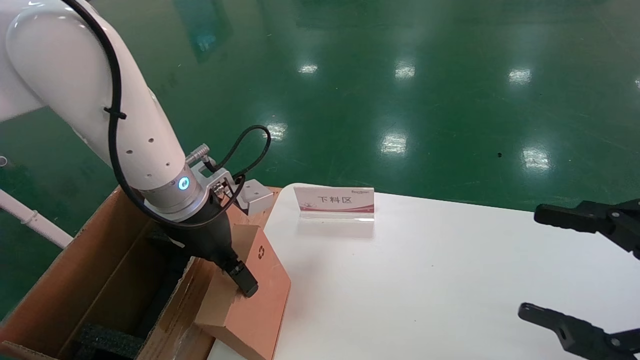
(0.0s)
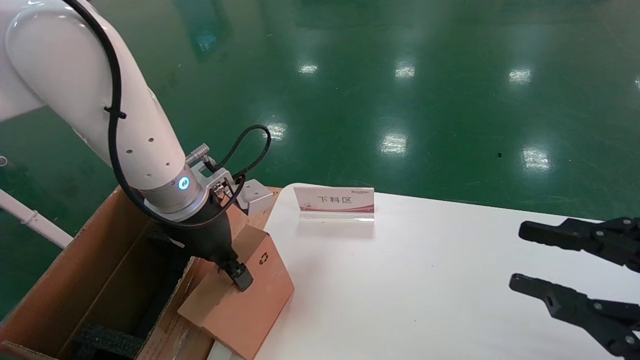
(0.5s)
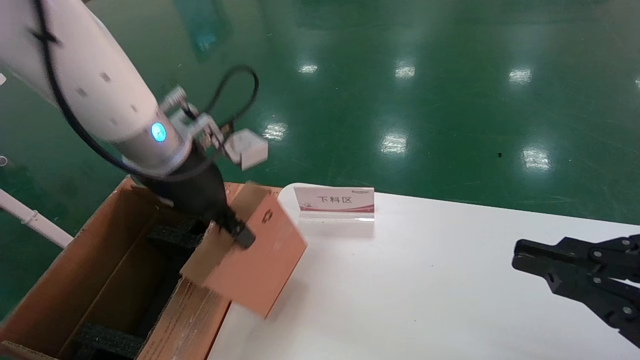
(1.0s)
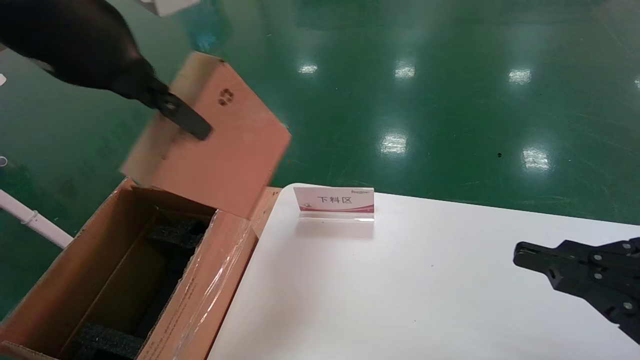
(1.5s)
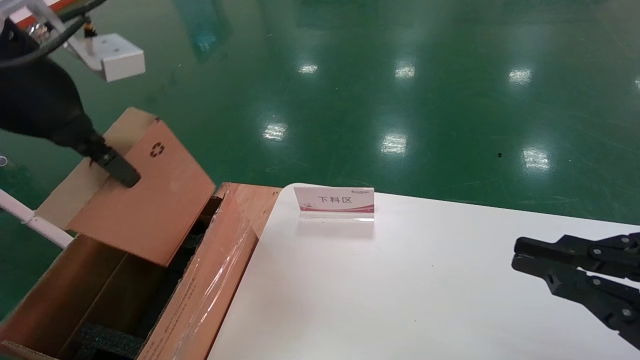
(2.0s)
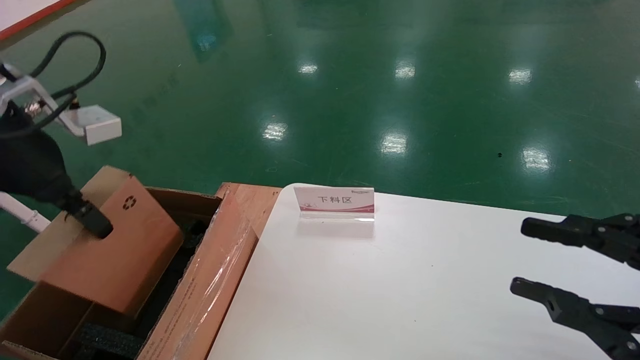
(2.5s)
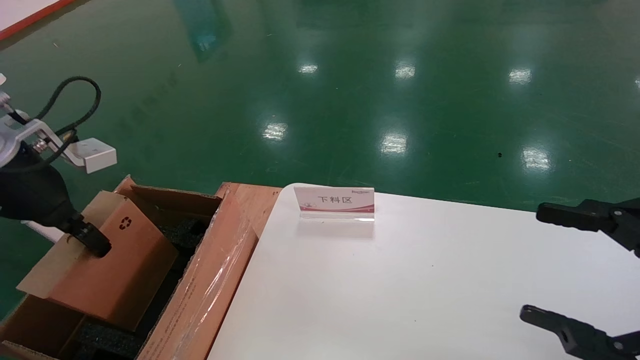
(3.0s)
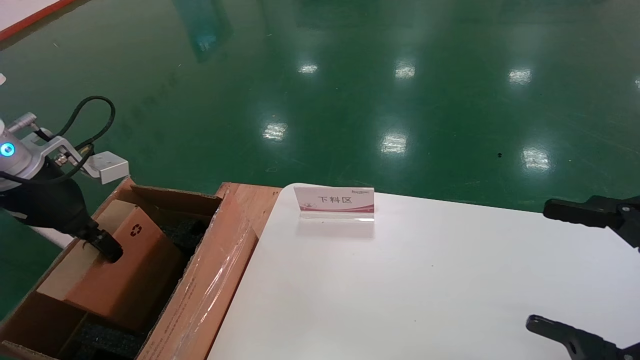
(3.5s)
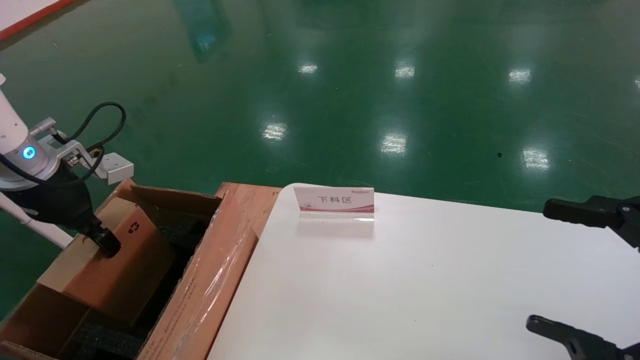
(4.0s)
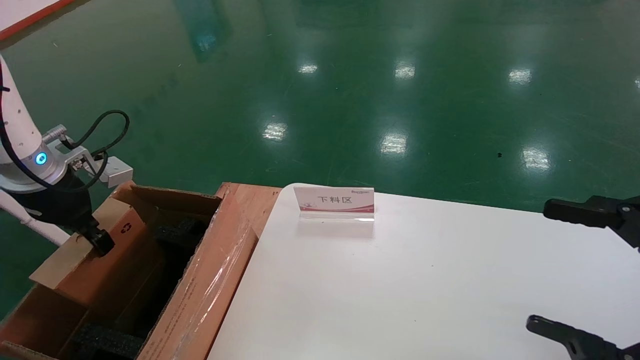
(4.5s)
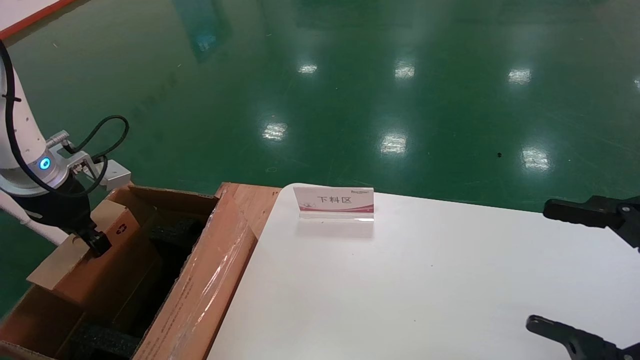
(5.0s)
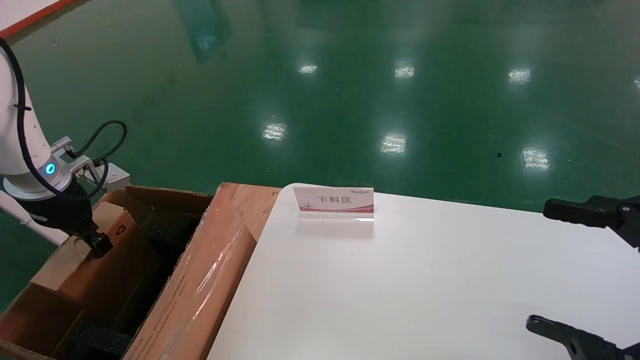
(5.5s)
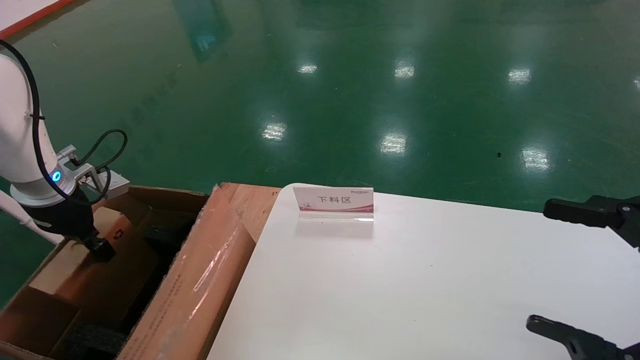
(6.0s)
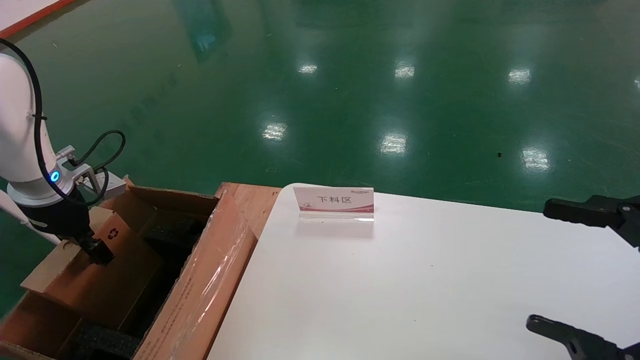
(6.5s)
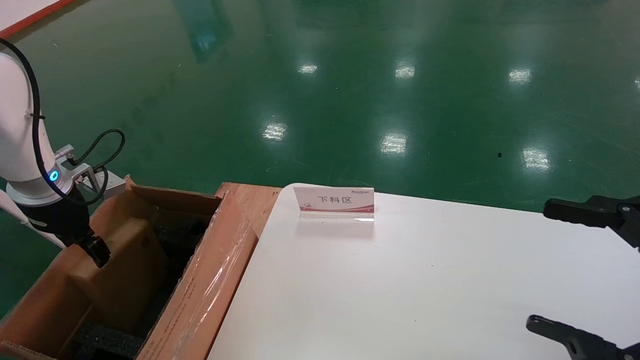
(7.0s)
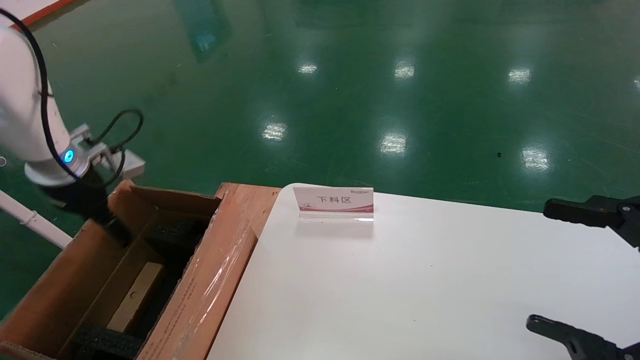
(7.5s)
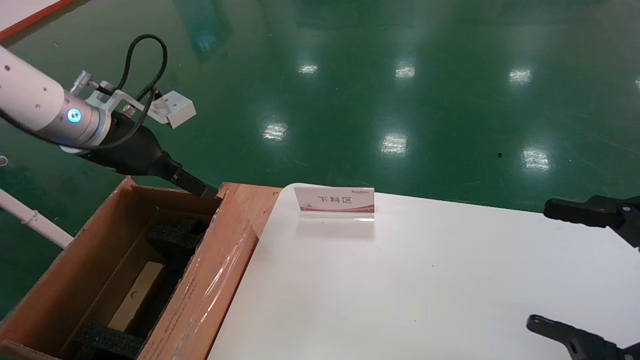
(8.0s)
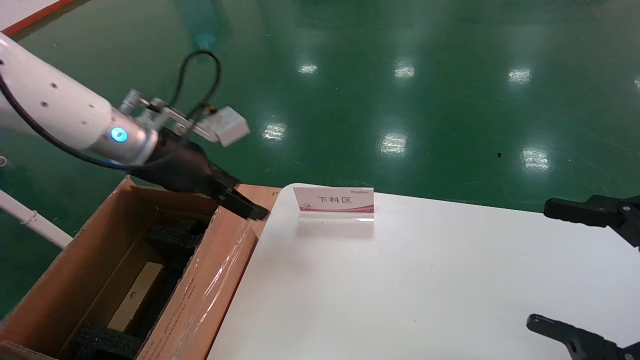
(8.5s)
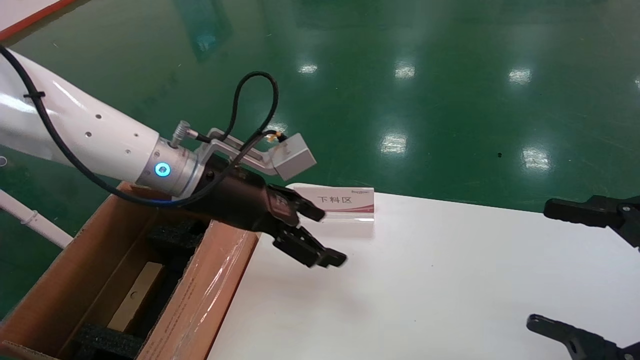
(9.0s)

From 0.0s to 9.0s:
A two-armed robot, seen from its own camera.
Task of the whole recording: pick up the small cardboard box and load it into the large cardboard box.
Step, from 1.0s to 7.0s: Place the mouse and power cord box into the case.
From 0.0s to 2.0s: The right gripper closes its fingers, while the left gripper moves upward, backward and to the left, approximately 20 cm, and closes up.
From 2.0s to 4.5s: The right gripper opens; the left gripper goes some 25 cm downward, to the left and forward.
From 4.5s to 7.0s: The left gripper changes place by roughly 5 cm, and opens its fingers.
From 7.0s to 9.0s: The left gripper moves to the right, about 25 cm, and opens its fingers.

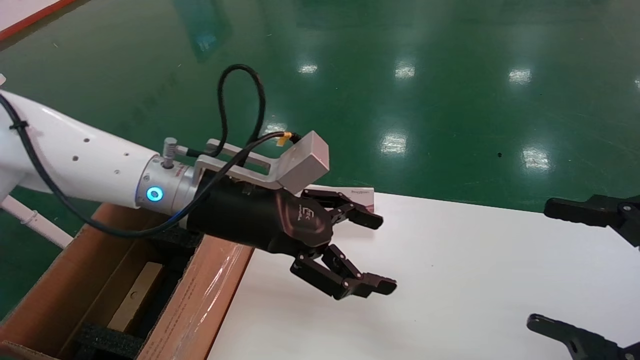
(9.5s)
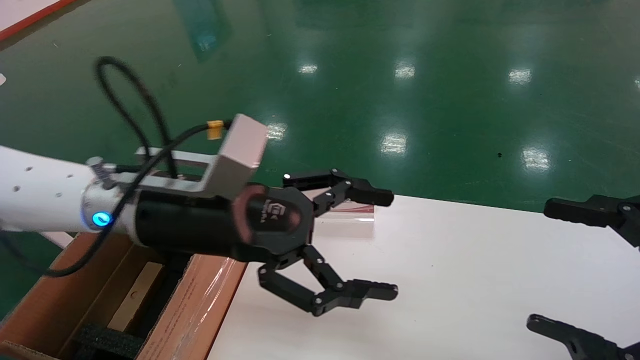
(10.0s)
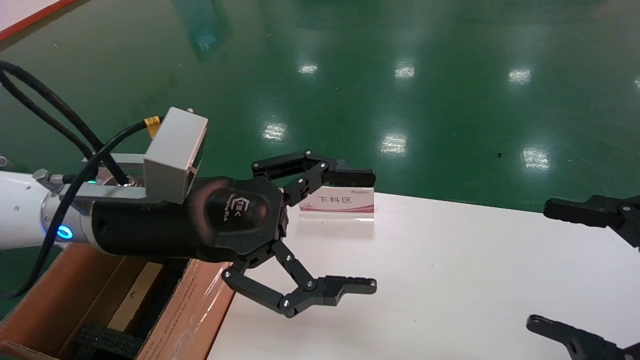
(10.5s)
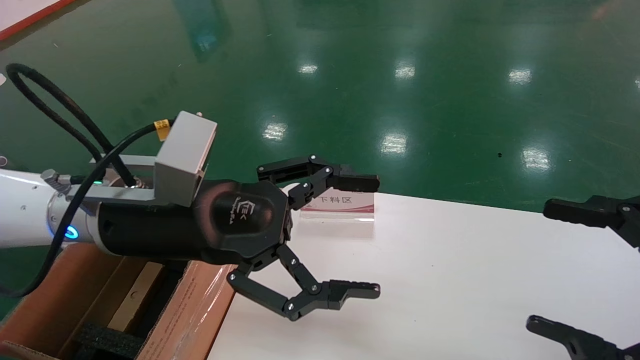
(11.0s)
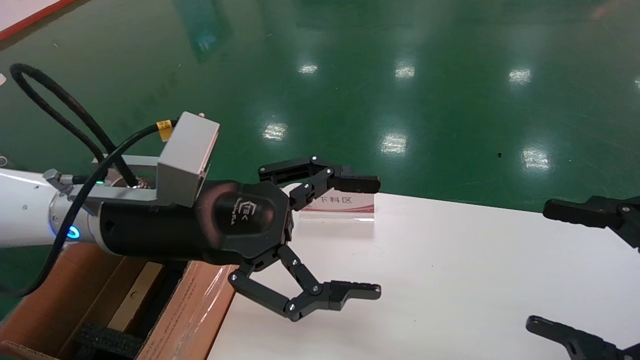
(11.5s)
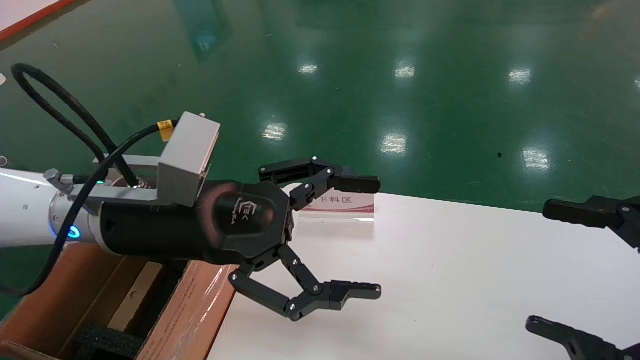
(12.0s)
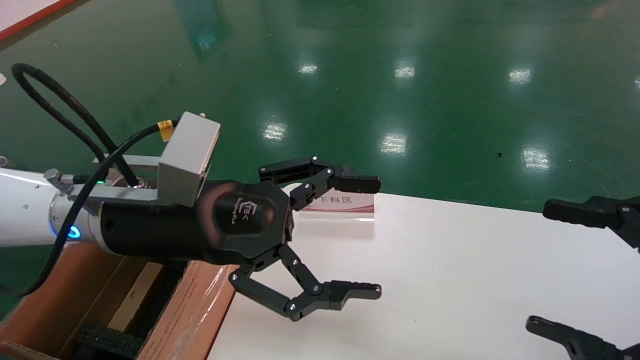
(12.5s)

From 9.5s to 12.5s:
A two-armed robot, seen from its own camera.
Task of the whole recording: pick up the small cardboard box and load it into the large cardboard box.
From 9.5s to 11.0s: The left gripper shifts approximately 5 cm backward.
From 11.0s to 12.5s: The two grippers keep their place.

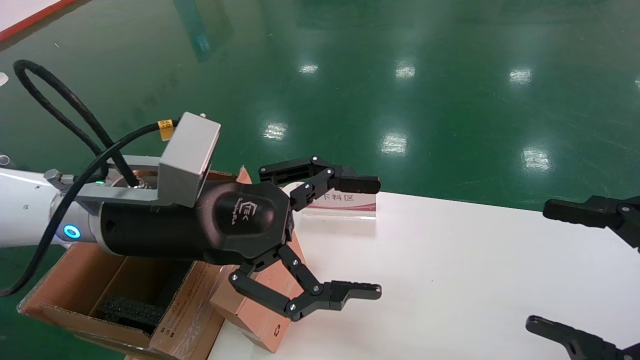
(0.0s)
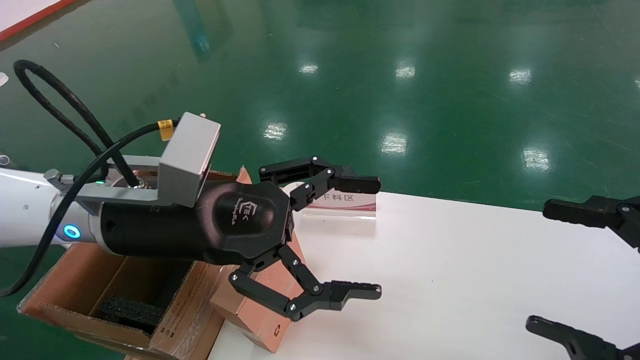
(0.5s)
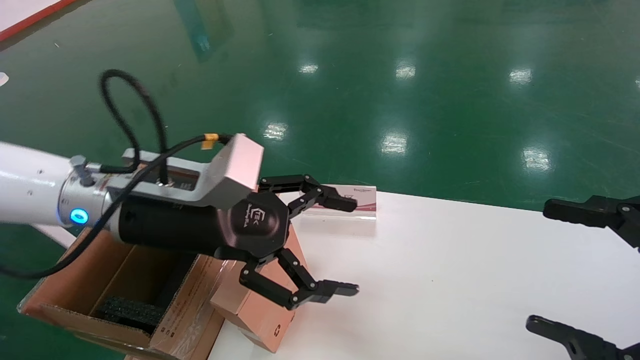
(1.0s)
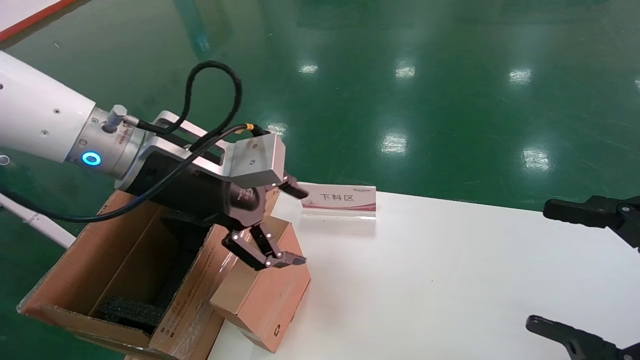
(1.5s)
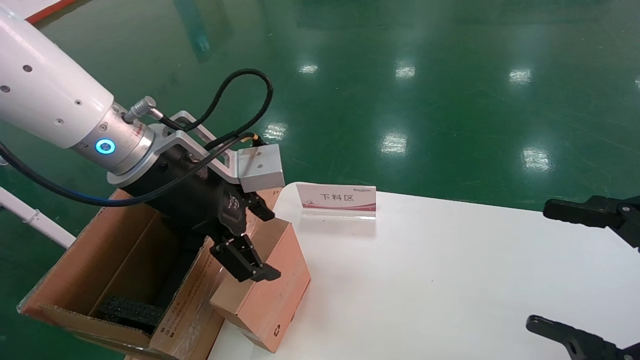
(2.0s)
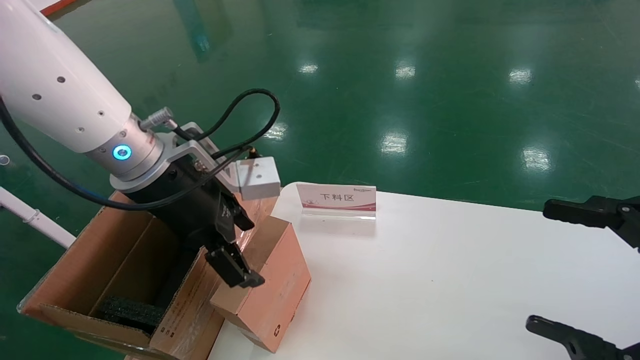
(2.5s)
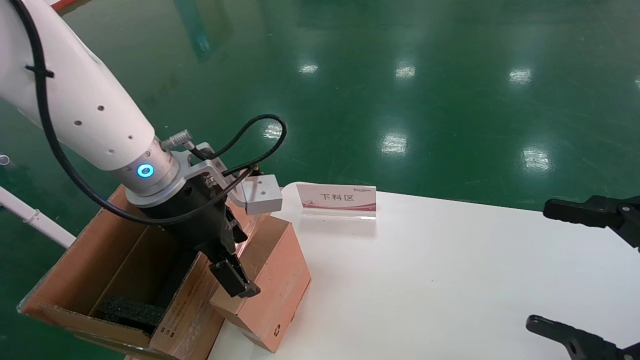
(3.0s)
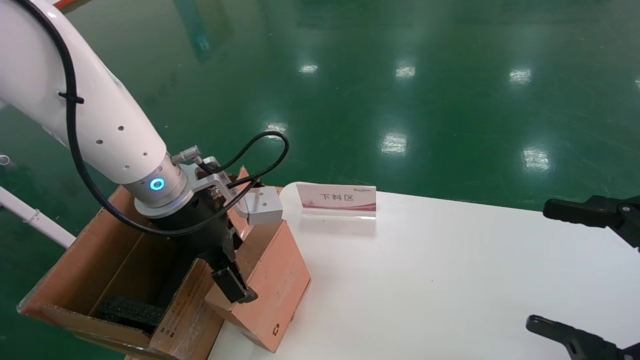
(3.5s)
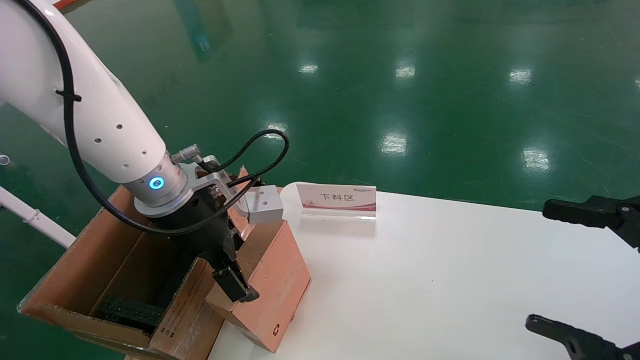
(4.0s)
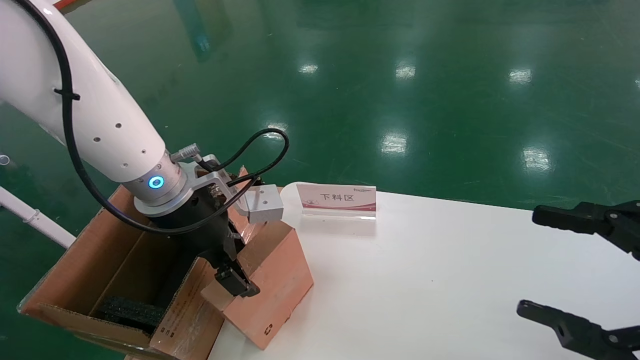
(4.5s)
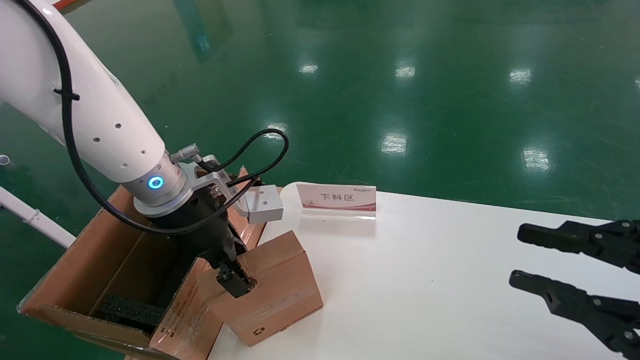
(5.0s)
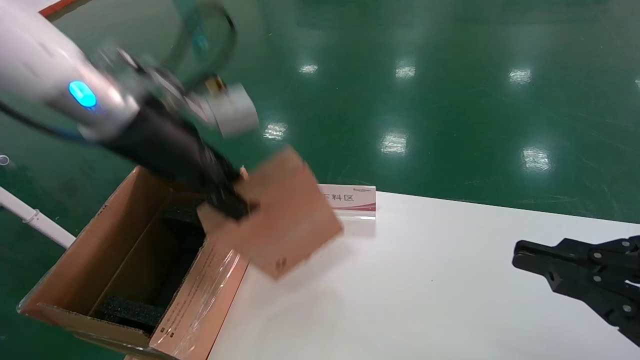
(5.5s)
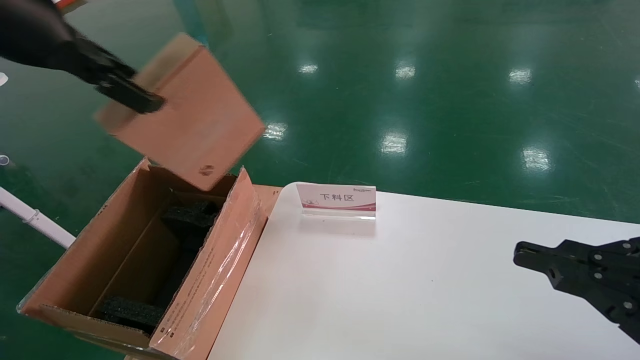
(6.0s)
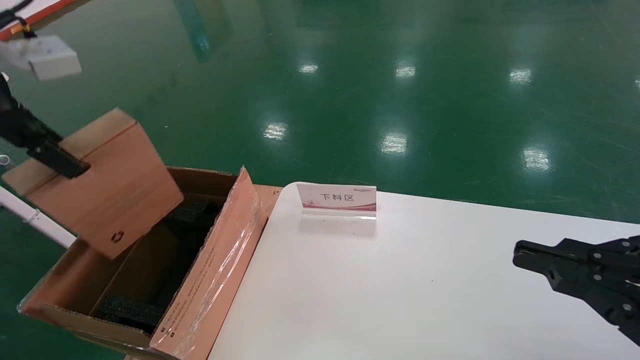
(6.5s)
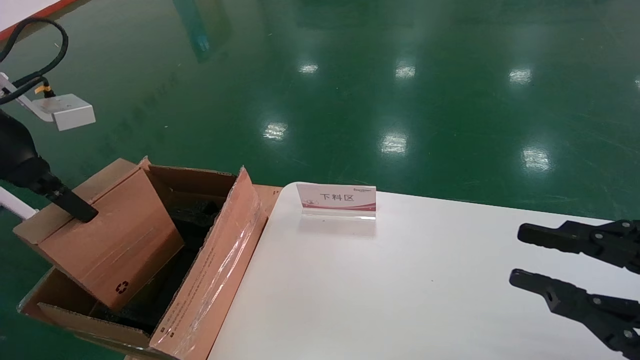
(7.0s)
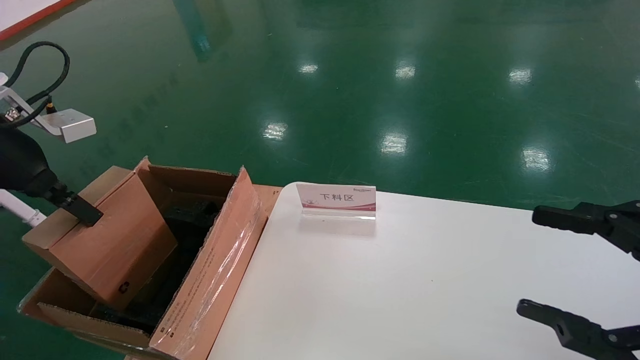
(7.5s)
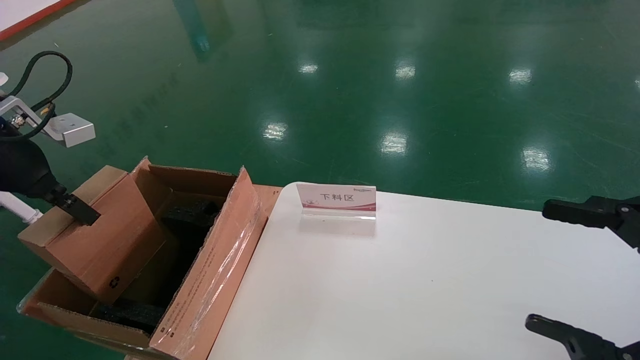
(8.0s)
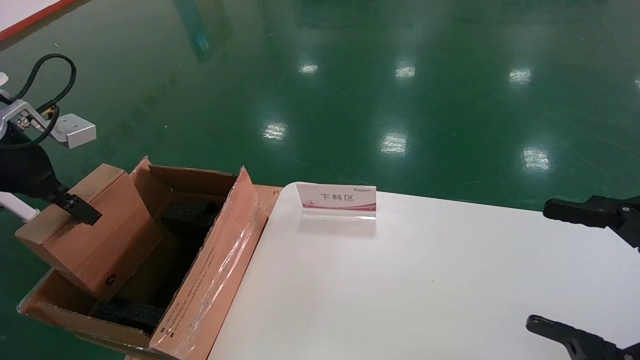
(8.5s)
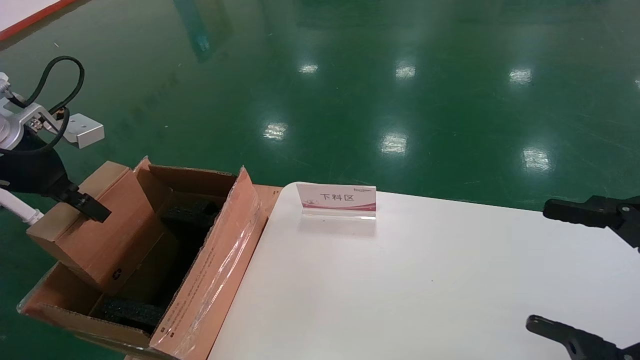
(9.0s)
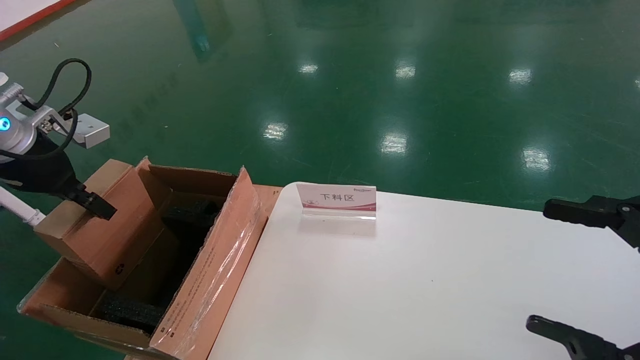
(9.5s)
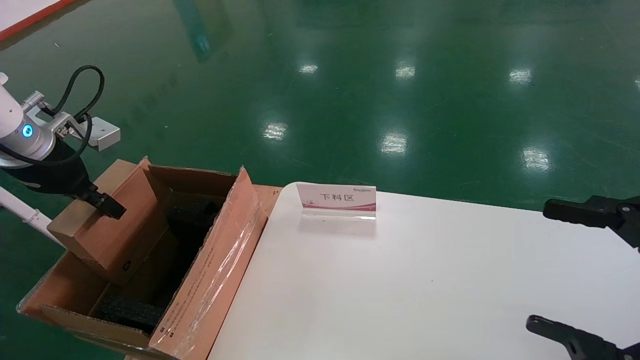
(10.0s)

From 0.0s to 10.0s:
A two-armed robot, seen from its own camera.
Task of the whole recording: pick up the small cardboard box and load it into the large cardboard box.
Step, from 1.5s to 5.0s: Pick up the mouse and power cord box.
From 0.0s to 2.0s: The left gripper changes place by some 5 cm.
From 2.0s to 4.0s: The left gripper shifts by roughly 5 cm.
From 4.0s to 6.0s: The left gripper goes approximately 25 cm upward and to the left, and closes. The right gripper closes its fingers.
From 6.0s to 8.0s: The left gripper is displaced downward and to the left by roughly 15 cm. Meanwhile the right gripper opens.
From 8.0s to 10.0s: The left gripper moves approximately 5 cm.
